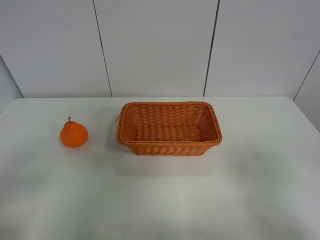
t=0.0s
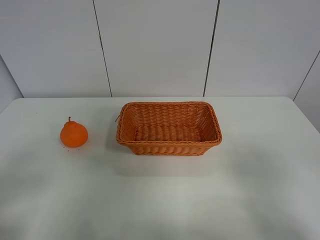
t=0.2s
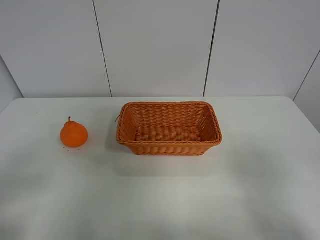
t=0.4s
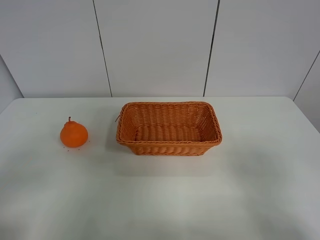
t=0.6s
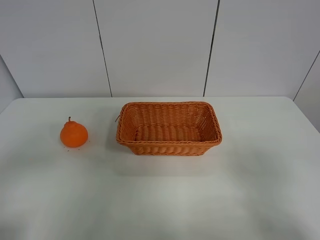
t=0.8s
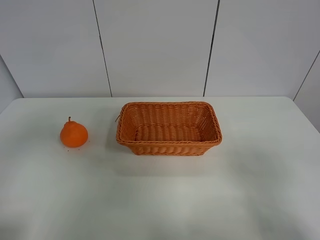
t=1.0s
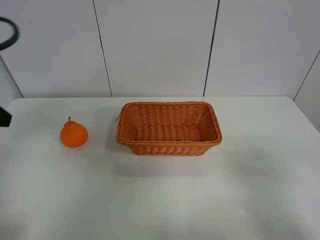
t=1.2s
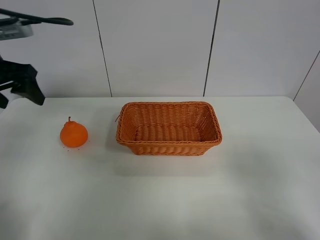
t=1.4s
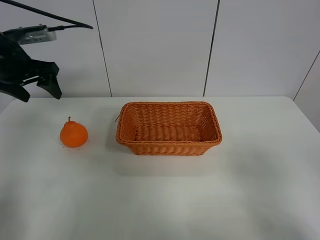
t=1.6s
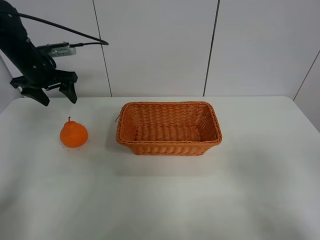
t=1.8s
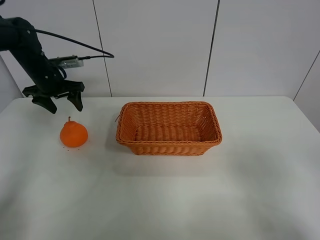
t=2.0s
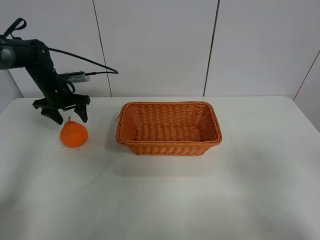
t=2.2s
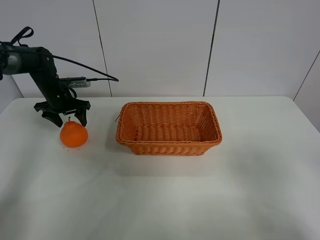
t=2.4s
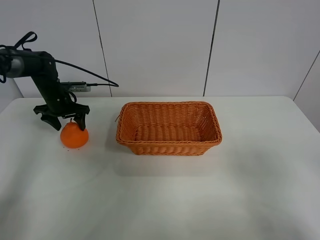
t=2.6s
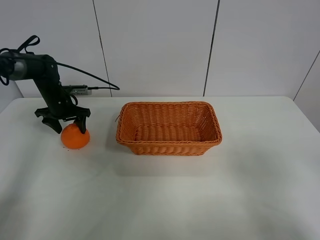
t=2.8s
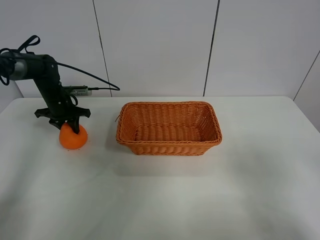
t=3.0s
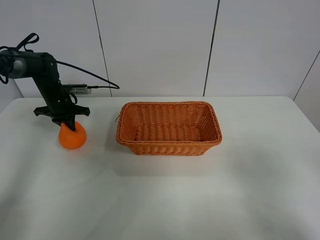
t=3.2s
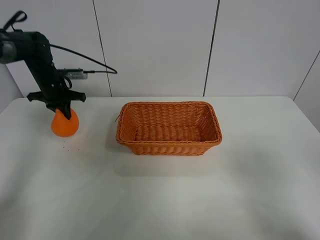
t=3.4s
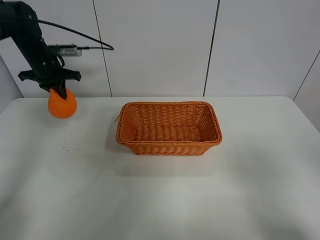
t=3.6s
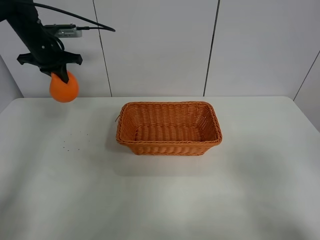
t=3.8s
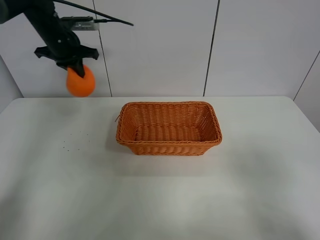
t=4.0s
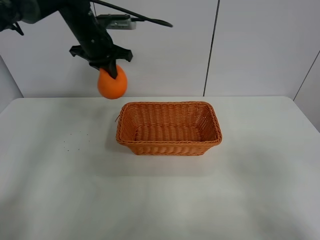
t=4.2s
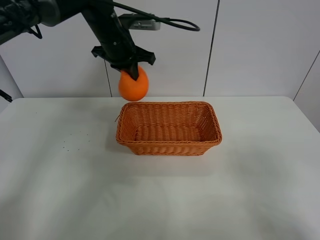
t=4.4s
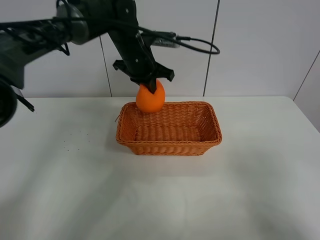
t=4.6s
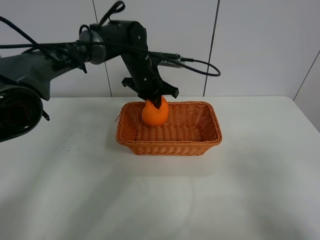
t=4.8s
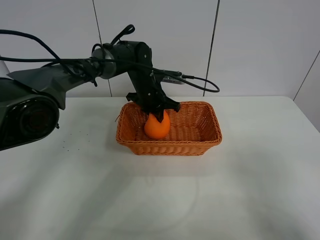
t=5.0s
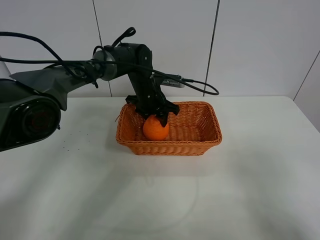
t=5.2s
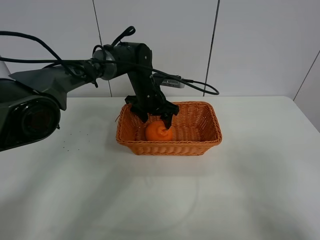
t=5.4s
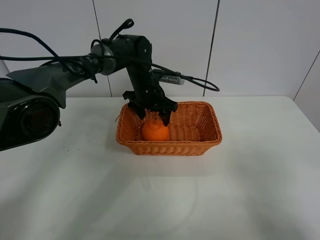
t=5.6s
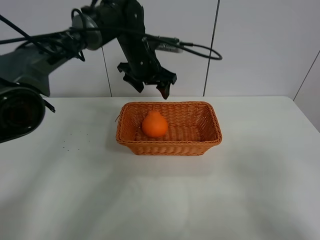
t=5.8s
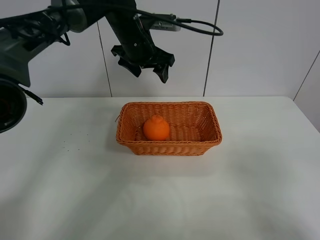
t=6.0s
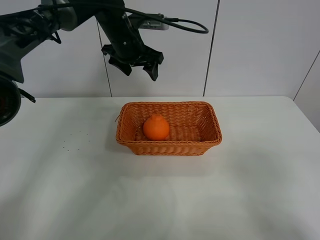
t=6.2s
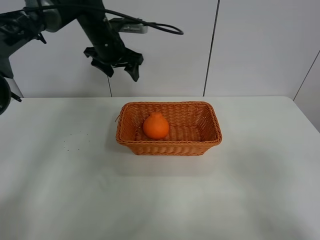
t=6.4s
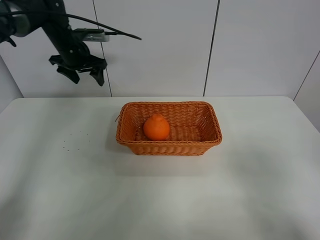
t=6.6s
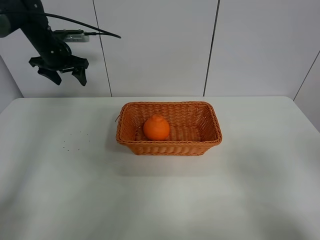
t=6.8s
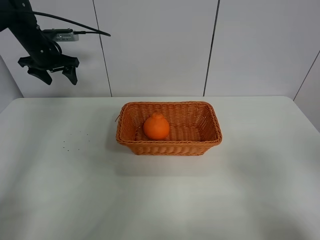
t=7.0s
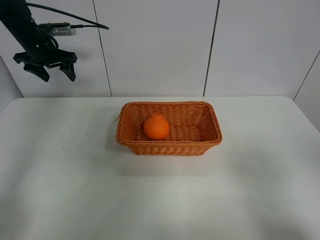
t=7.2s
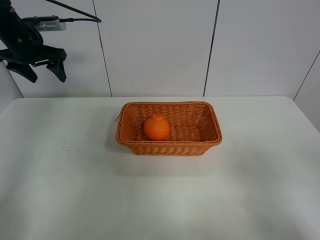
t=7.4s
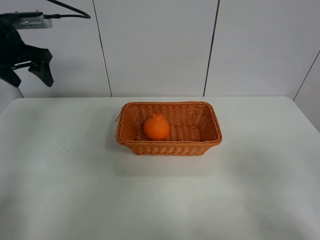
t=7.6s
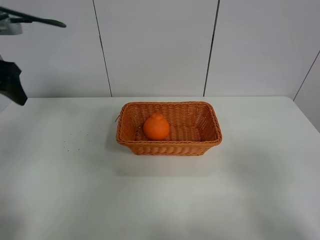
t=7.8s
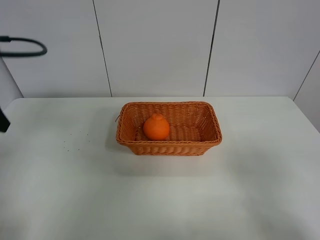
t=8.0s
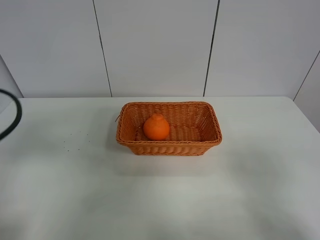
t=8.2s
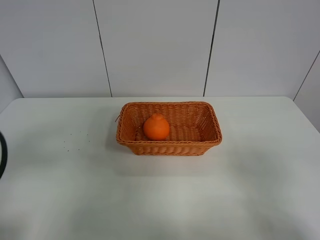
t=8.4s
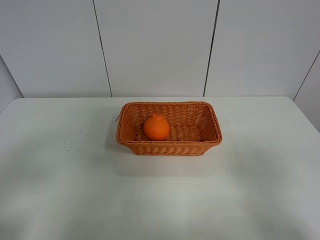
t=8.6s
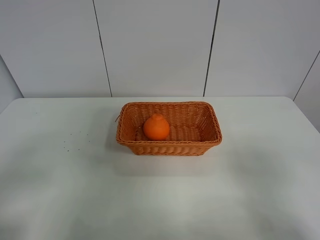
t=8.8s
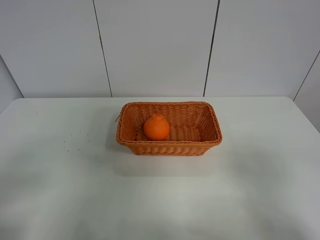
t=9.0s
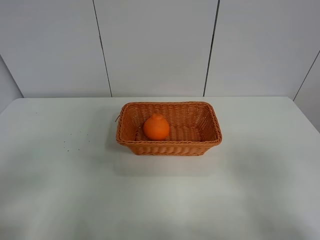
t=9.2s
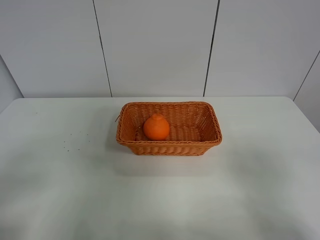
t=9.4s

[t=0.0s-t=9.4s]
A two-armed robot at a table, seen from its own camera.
Task of the whole recording: left gripper grabs oranges and puts them in the basket.
Step, t=0.0s to t=3.0s: Grasp the orange with left gripper.
Step, t=3.2s to t=6.4s: Place the orange in the basket with left gripper.
t=0.0s to t=1.6s: The left gripper travels forward by roughly 35 cm.
t=1.6s to t=3.2s: The left gripper shifts some 20 cm downward and forward, and closes its fingers.
t=3.2s to t=4.8s: The left gripper heads to the right, covering approximately 25 cm.
t=4.8s to t=6.2s: The left gripper travels upward and to the left by approximately 10 cm, and opens up.
t=6.2s to t=7.8s: The left gripper heads to the left and backward, covering roughly 30 cm.
t=7.8s to t=9.4s: The left gripper moves backward, roughly 25 cm.

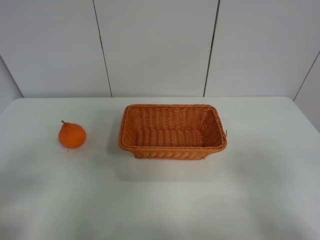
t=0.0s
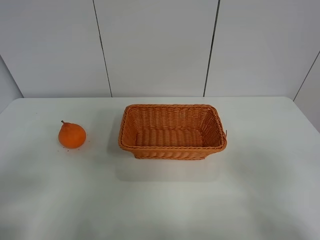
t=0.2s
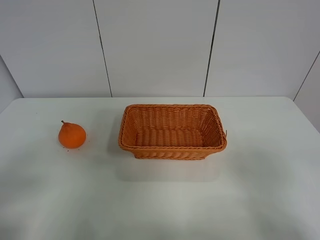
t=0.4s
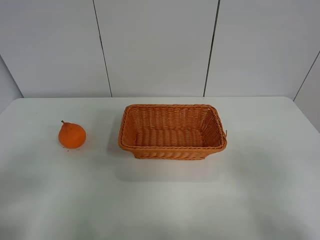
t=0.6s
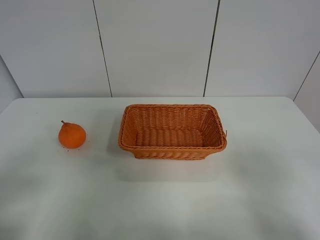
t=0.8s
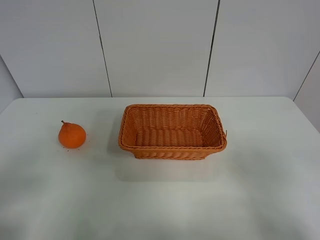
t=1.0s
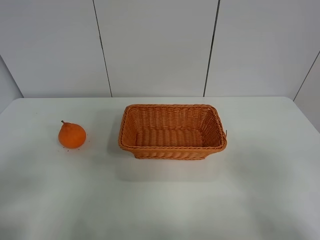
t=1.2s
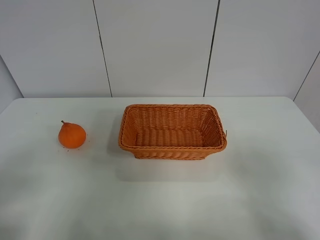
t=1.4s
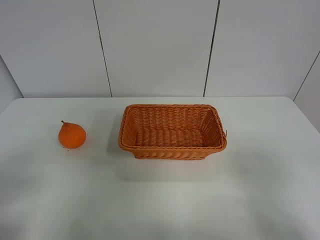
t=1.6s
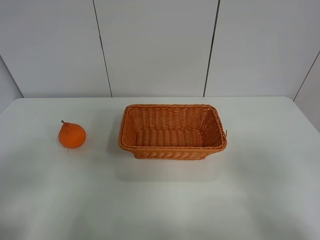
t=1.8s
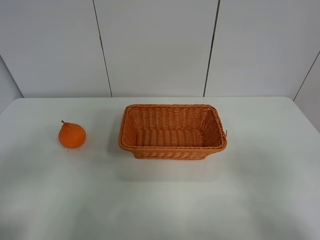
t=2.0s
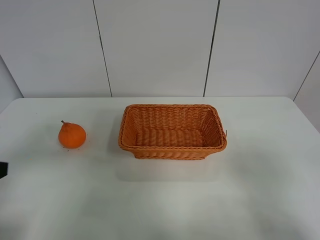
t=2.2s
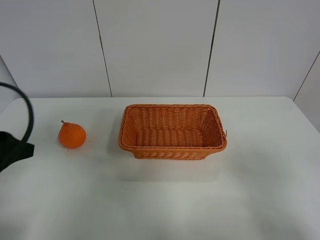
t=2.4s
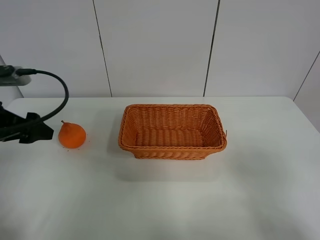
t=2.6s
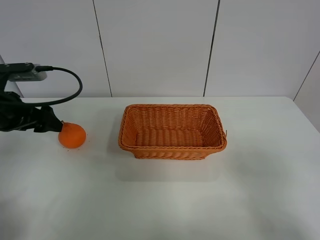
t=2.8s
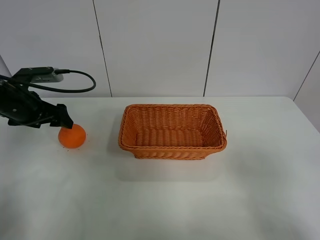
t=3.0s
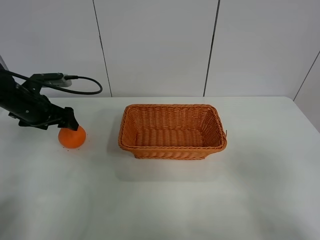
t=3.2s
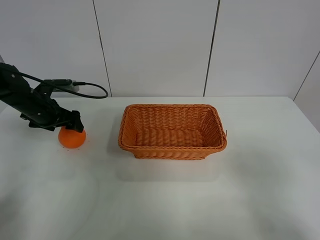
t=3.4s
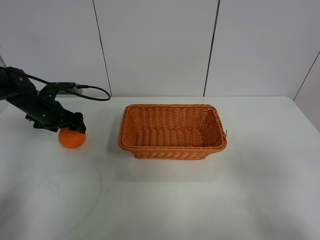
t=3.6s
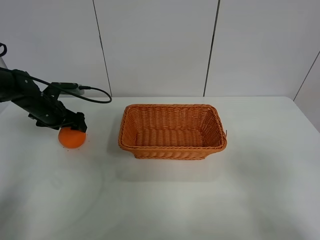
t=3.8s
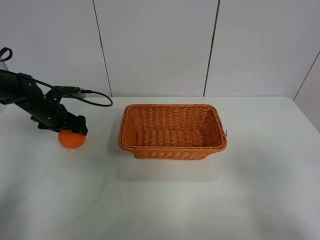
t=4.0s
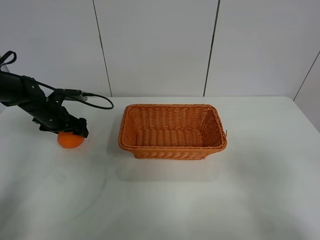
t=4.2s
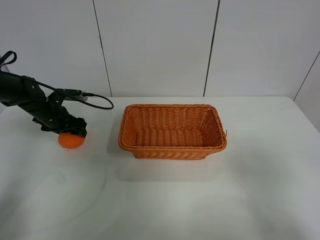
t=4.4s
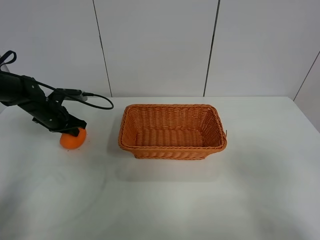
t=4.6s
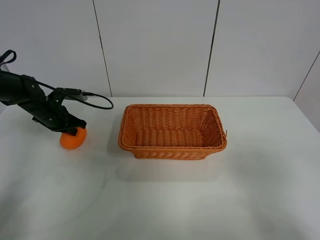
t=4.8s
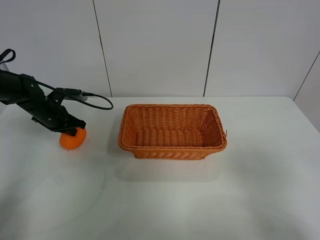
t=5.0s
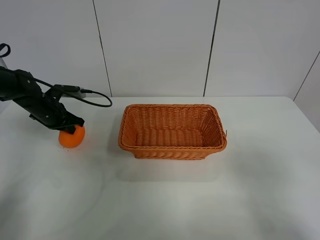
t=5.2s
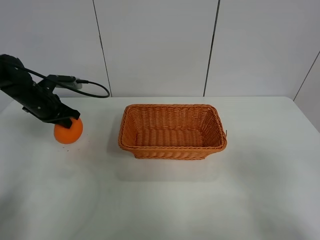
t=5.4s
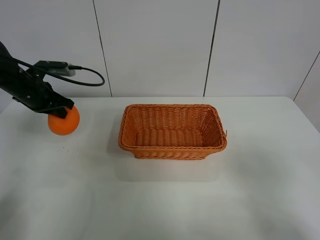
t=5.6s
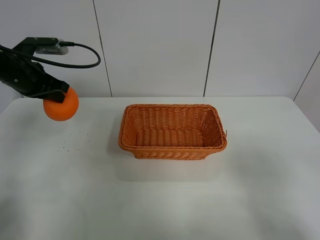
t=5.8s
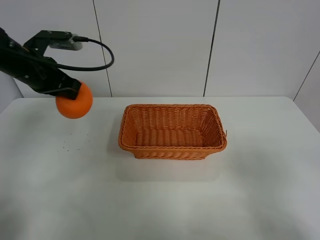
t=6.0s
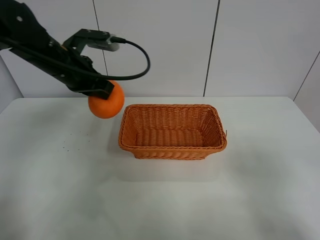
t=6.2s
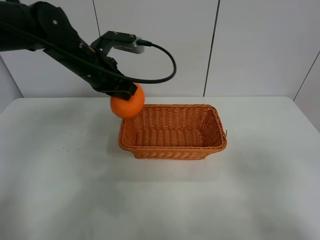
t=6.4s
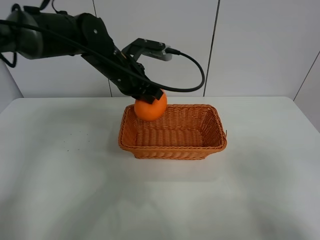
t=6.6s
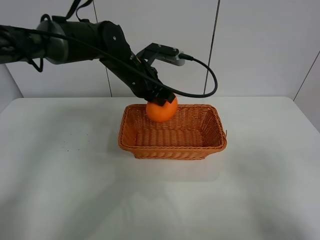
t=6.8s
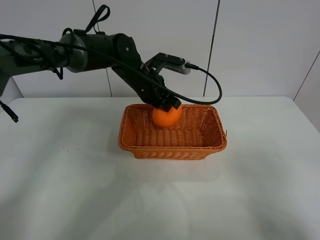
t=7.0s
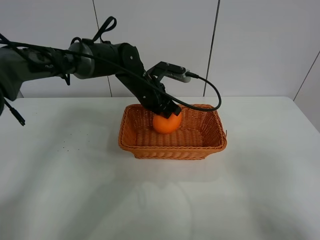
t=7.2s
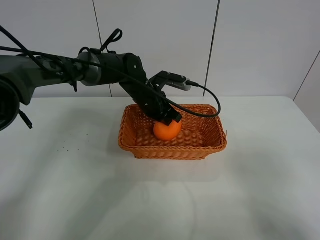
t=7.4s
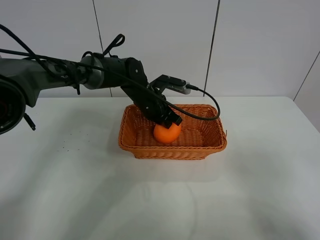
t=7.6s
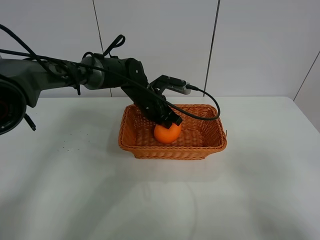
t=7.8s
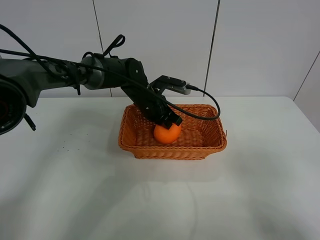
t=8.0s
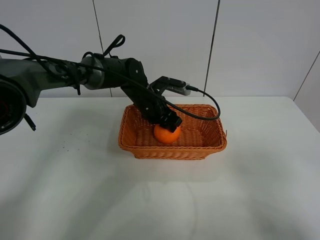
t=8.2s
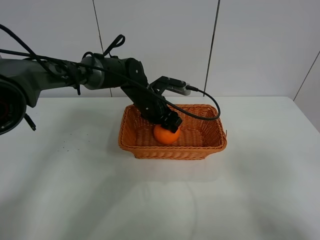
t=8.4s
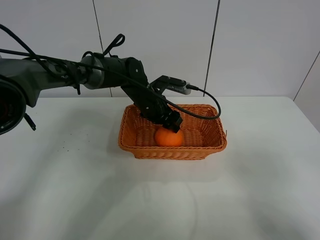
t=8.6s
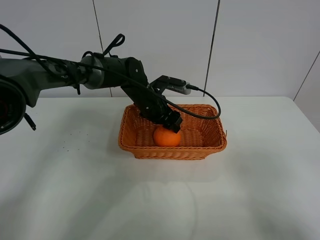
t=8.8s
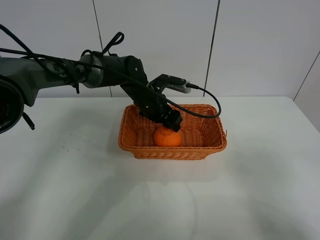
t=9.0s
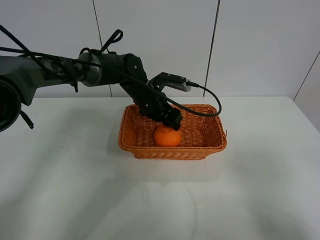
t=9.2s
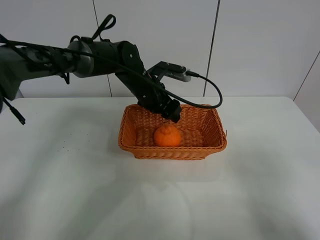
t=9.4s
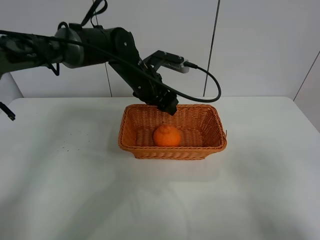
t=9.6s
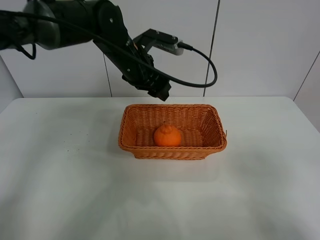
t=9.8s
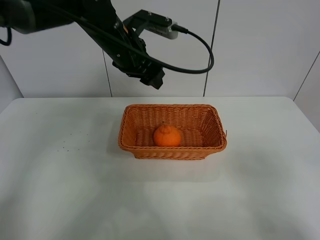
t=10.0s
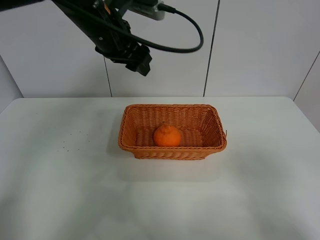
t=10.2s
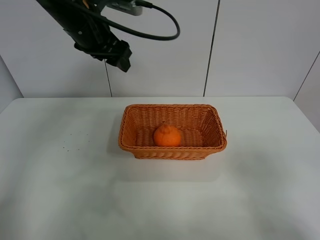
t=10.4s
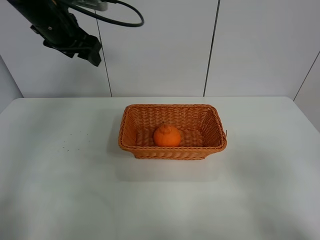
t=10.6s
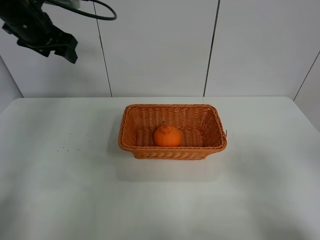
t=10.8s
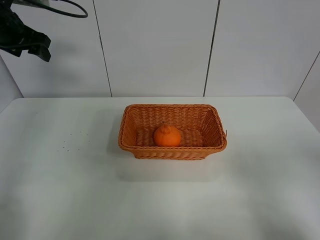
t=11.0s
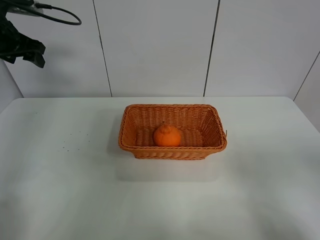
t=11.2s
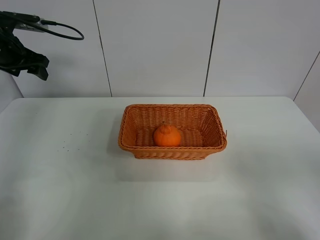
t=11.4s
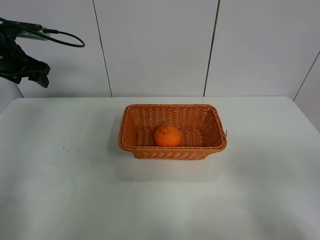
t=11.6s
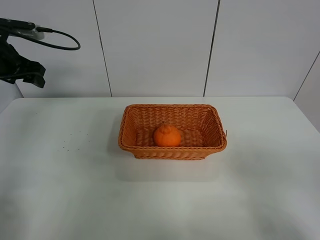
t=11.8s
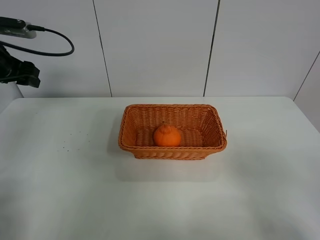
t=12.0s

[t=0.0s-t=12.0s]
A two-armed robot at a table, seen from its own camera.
Task of the whole recording: left gripper grabs oranges and puts them in the basket.
Step, t=0.0s to t=4.8s: Grasp the orange with left gripper.
Step, t=5.0s to t=10.4s: Place the orange in the basket with left gripper.
t=1.6s to t=3.0s: The left gripper heads forward, covering some 35 cm.
t=3.0s to t=4.4s: The left gripper heads downward and forward, covering roughly 10 cm.
t=4.4s to t=6.0s: The left gripper shifts approximately 15 cm upward, and closes its fingers.
t=6.0s to t=7.6s: The left gripper shifts approximately 25 cm to the right and downward.
t=7.6s to t=9.0s: The left gripper opens up.
t=9.0s to t=10.4s: The left gripper is displaced upward and to the left by approximately 20 cm.
t=10.4s to t=12.0s: The left gripper shifts approximately 20 cm to the left.

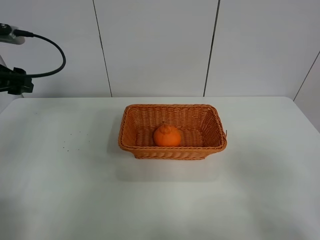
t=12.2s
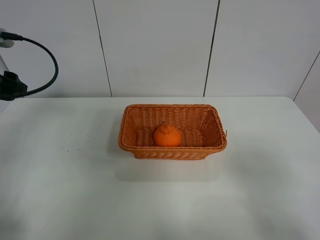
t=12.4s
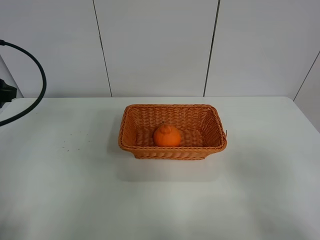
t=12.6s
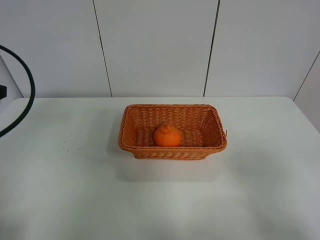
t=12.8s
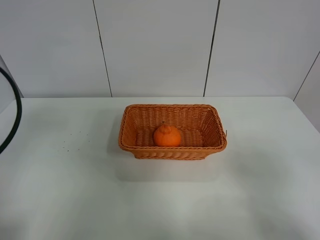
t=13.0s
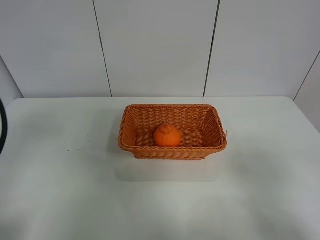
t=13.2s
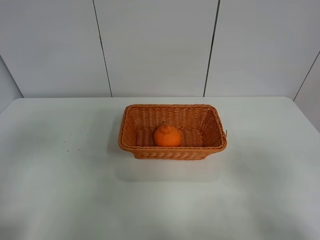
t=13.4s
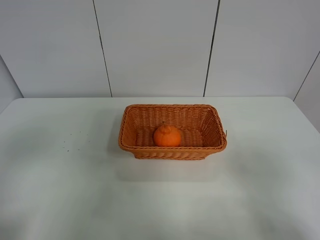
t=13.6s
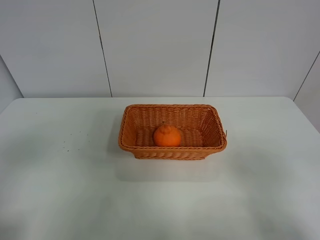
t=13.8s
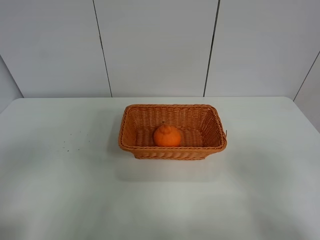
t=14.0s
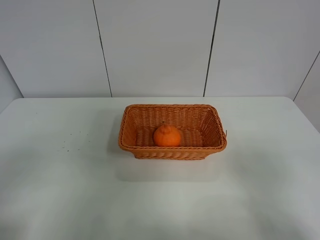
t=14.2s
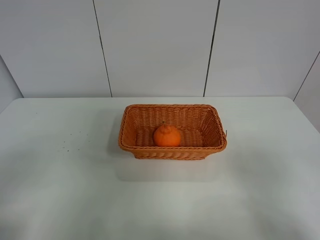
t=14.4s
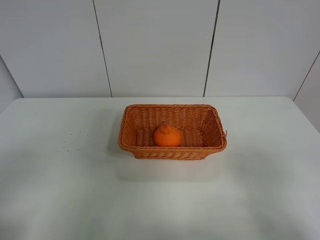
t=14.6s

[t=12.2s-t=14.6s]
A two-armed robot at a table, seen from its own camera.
Task of the whole recording: left gripper grabs oranges and puts them in the basket.
t=12.2s to t=13.4s: The left gripper goes roughly 20 cm backward.
